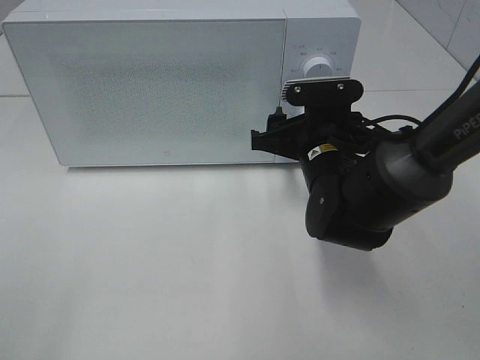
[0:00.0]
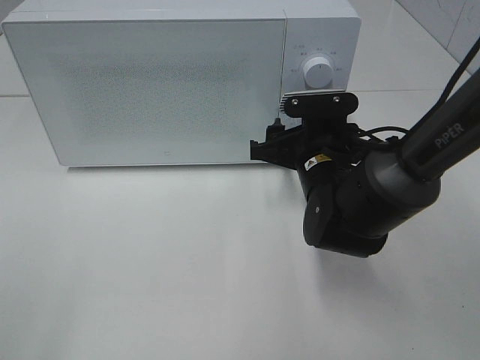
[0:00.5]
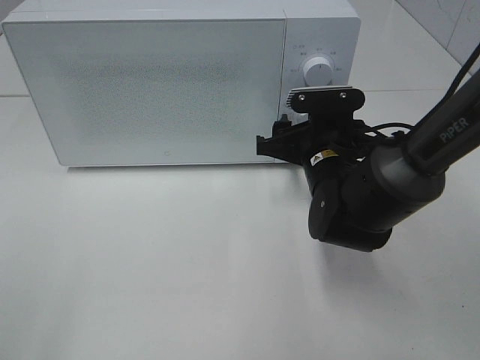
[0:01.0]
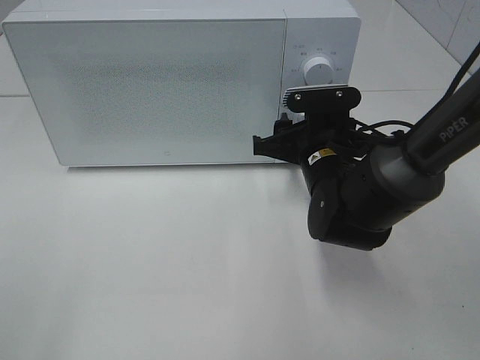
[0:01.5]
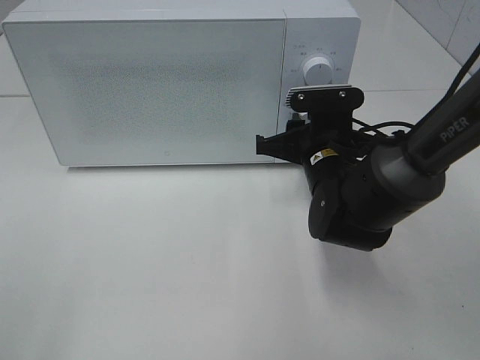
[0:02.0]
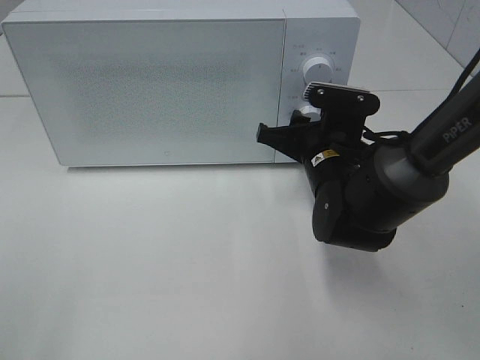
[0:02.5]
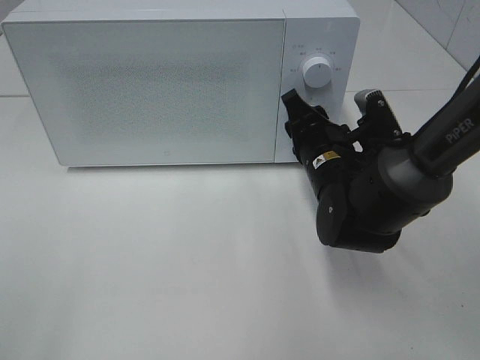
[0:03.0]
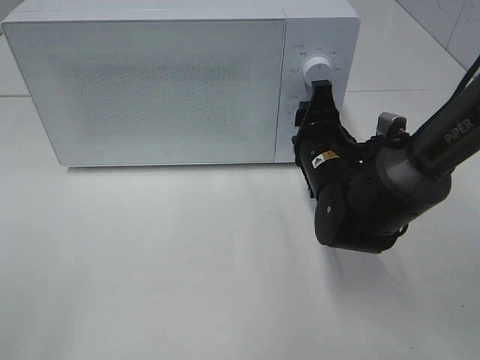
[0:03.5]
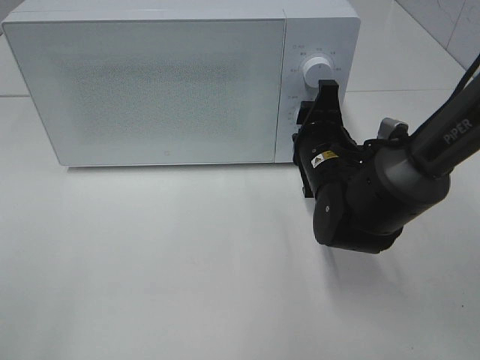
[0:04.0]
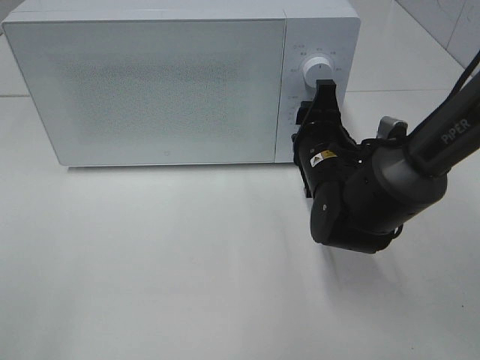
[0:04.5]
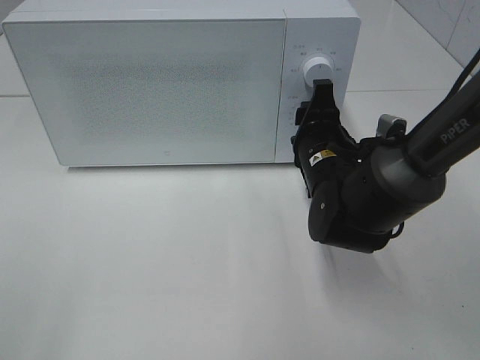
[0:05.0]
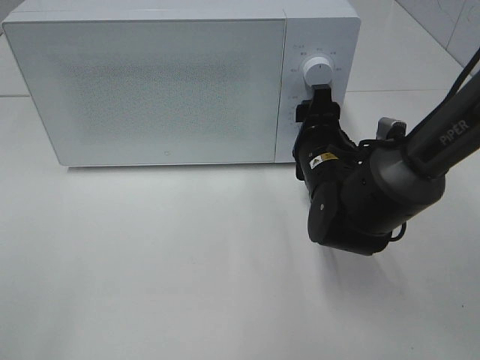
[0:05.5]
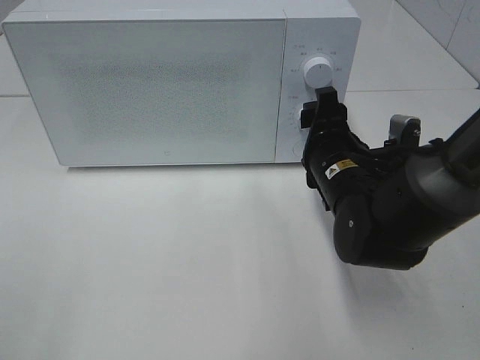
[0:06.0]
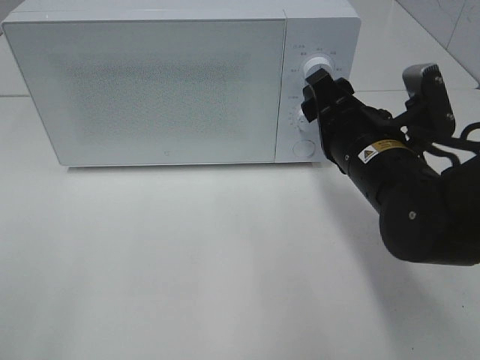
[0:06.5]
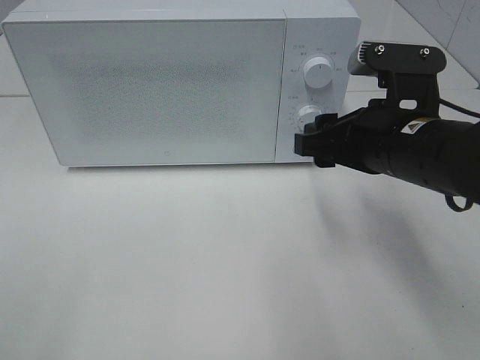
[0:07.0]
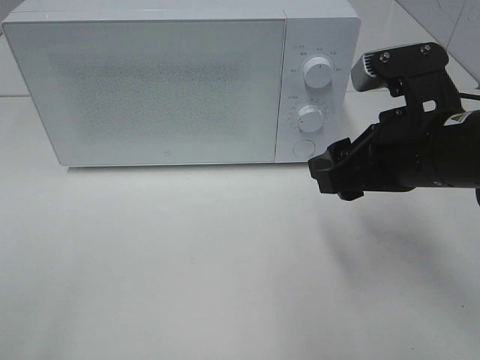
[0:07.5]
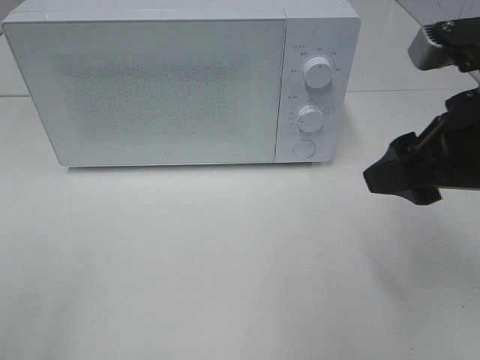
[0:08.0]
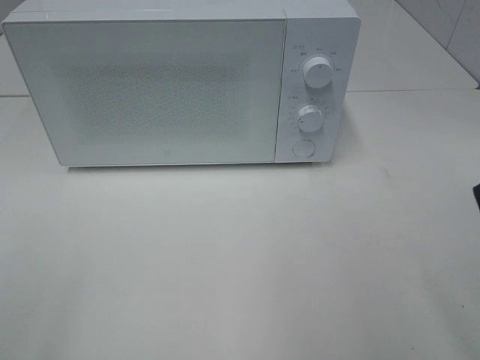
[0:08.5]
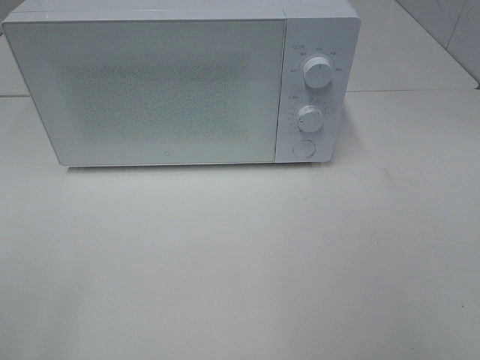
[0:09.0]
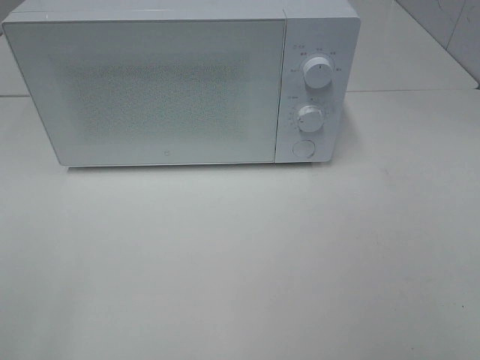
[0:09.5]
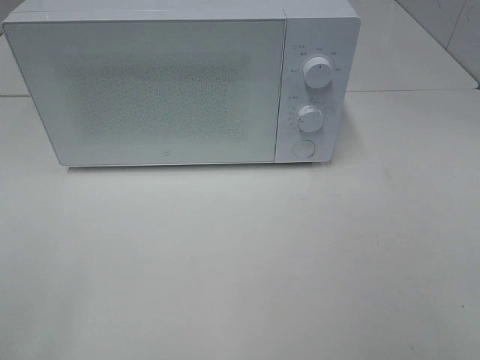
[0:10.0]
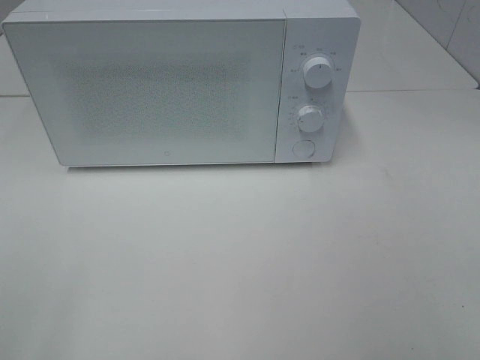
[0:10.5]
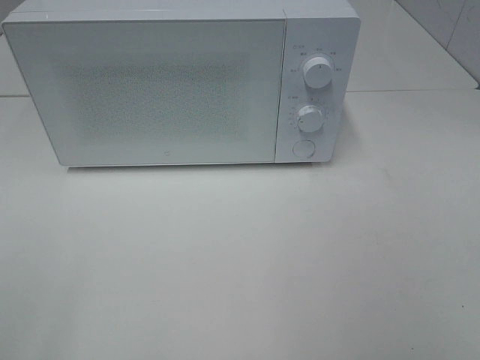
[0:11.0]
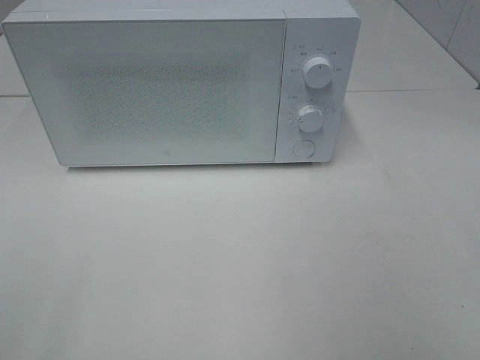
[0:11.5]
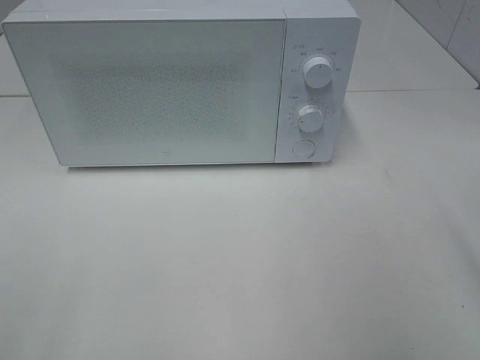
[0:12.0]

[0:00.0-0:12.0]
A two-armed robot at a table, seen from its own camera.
Task of the whole recording: Heat the burger.
Step, 0:00.0 to 0:05.5: Right hand: twist timer button.
0:00.0 to 0:02.0: The right gripper closes its fingers.
0:04.0 to 0:06.0: The grippers move only a little.
0:06.0 to 0:08.0: The right gripper heads upward, backward and to the right, covering some 20 cm.
0:08.0 to 0:10.0: The right gripper heads backward and to the right, covering approximately 20 cm.

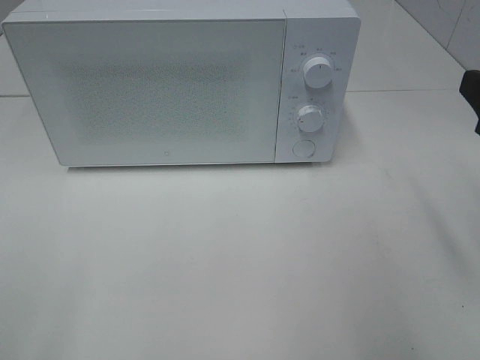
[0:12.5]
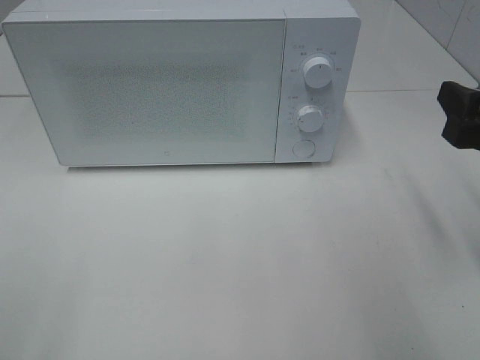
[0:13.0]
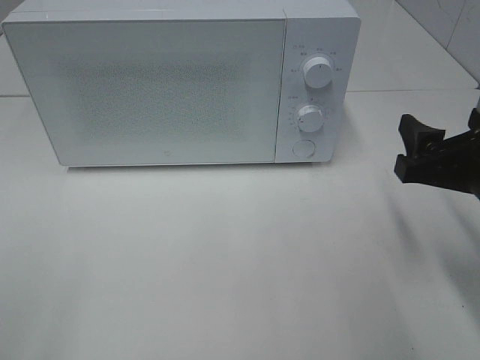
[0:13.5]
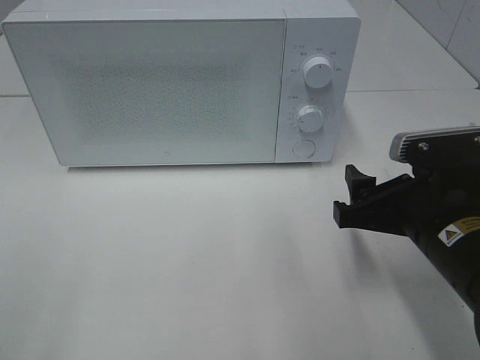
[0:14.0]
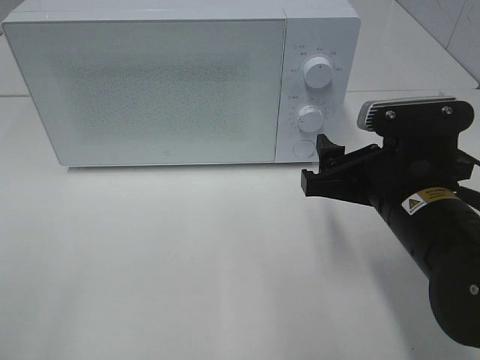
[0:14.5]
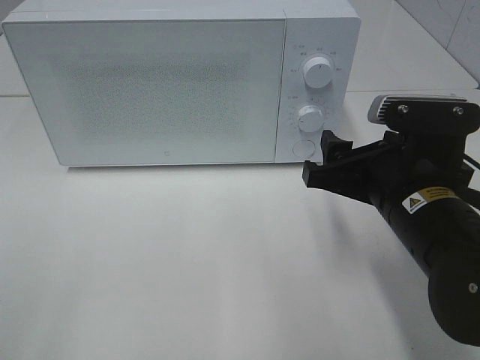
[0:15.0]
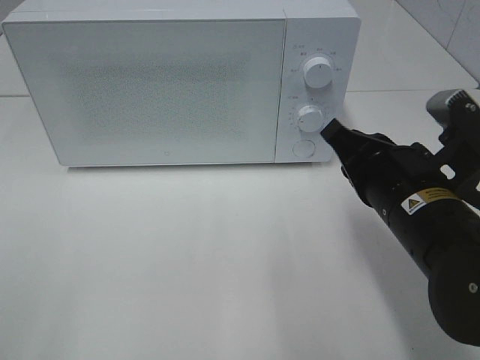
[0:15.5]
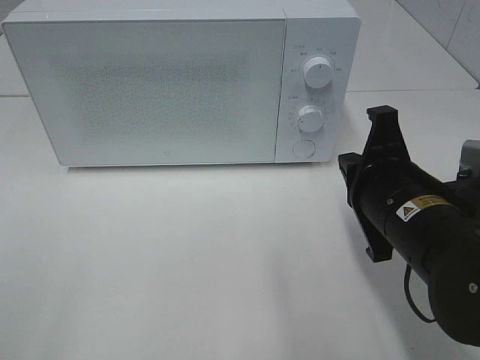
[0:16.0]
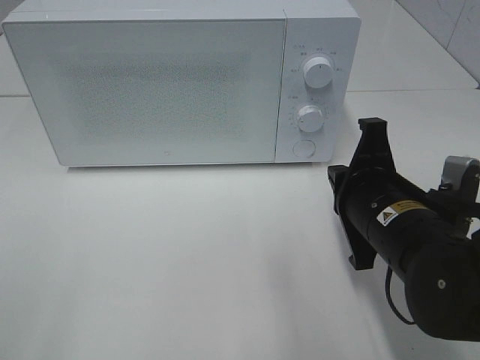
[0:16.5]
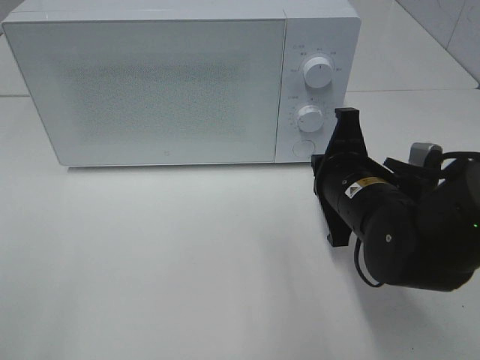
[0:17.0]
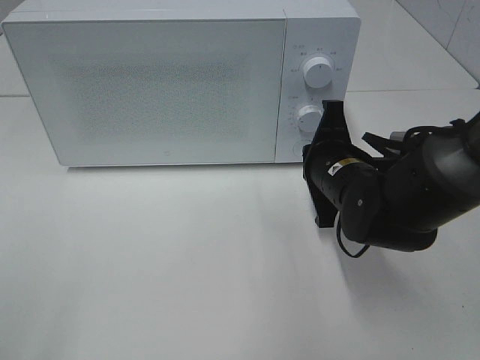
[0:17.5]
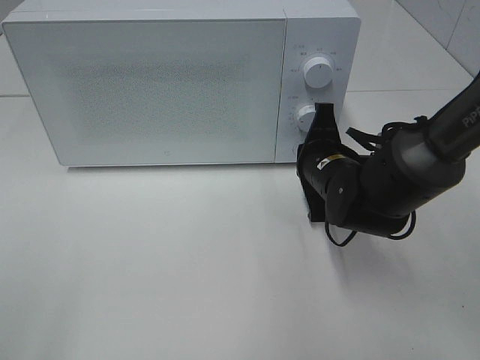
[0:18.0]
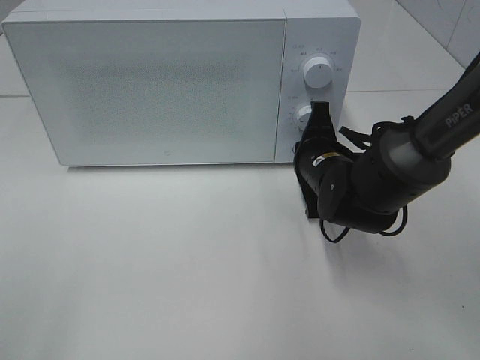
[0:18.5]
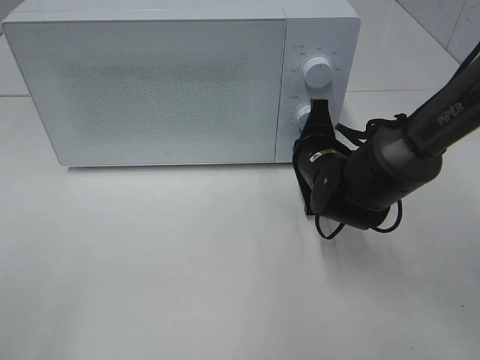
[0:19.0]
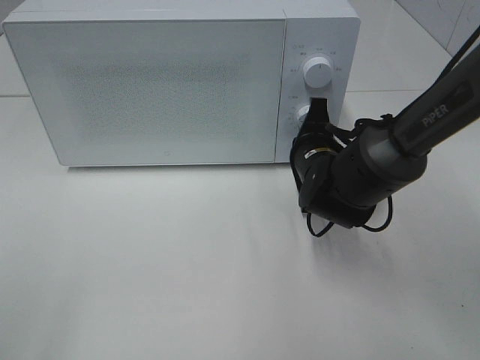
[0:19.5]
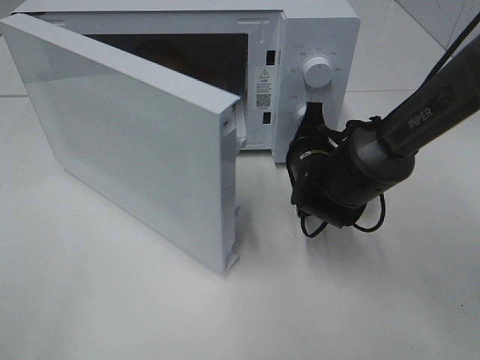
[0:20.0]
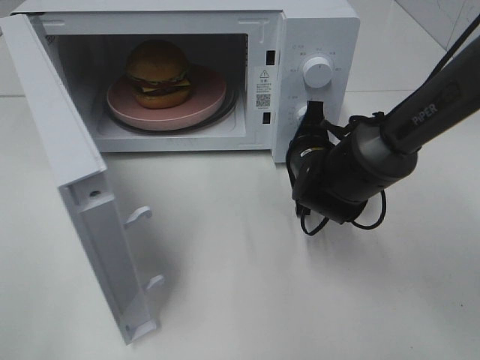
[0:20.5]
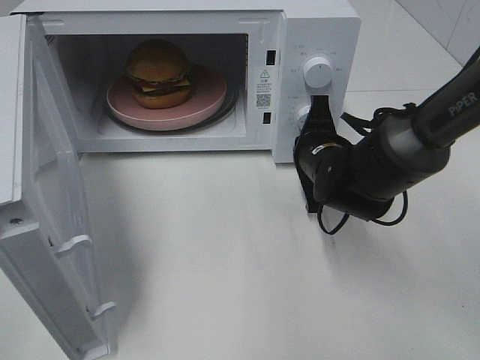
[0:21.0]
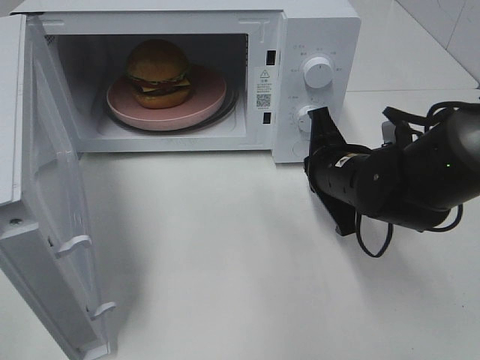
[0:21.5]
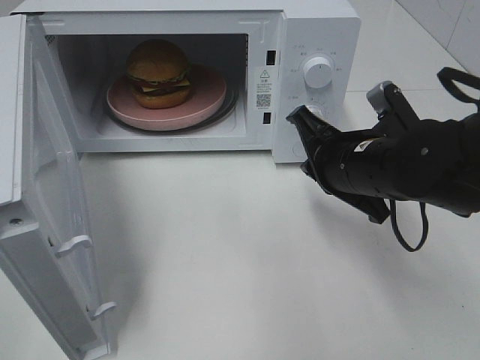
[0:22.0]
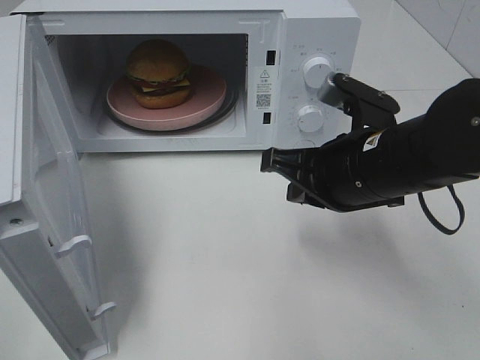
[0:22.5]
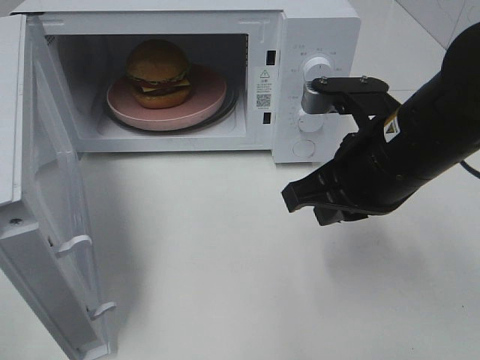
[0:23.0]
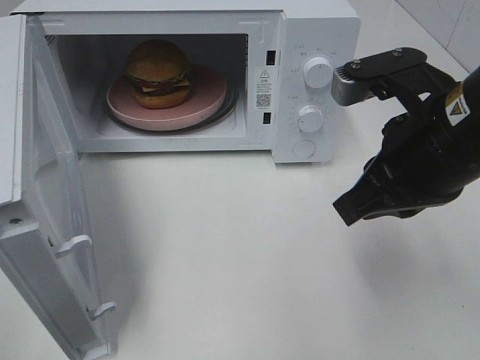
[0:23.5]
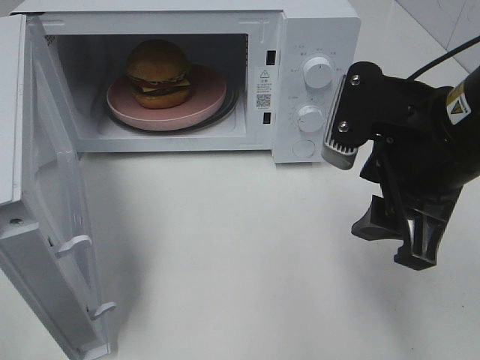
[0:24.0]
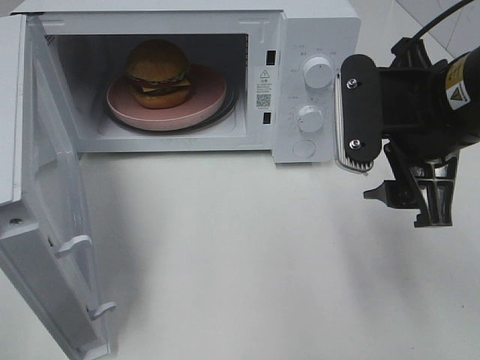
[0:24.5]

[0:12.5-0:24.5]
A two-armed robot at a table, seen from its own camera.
Task of the whole recording: Heat the burger.
Step, 0:12.5 to 0:21.0: Right hand: press the switch.
0:12.5 to 0:14.5: The right gripper heads to the left and downward, covering about 15 cm.
0:14.5 to 0:16.5: The right gripper closes.
0:16.5 to 0:18.5: The right gripper shifts approximately 15 cm forward and downward.
0:20.5 to 0:22.5: The right gripper travels backward and upward by approximately 15 cm.
0:22.5 to 0:24.5: The right gripper moves upward, approximately 10 cm, and opens its fingers.

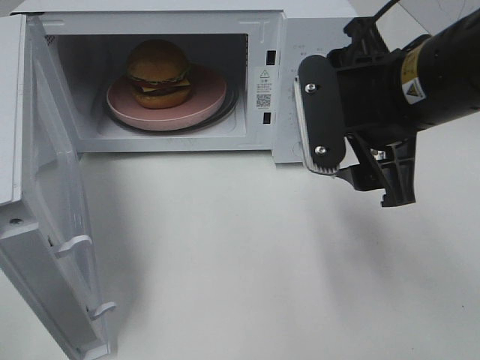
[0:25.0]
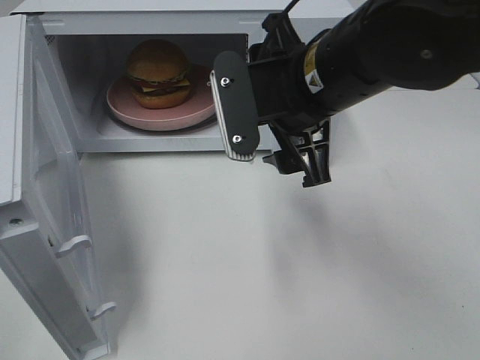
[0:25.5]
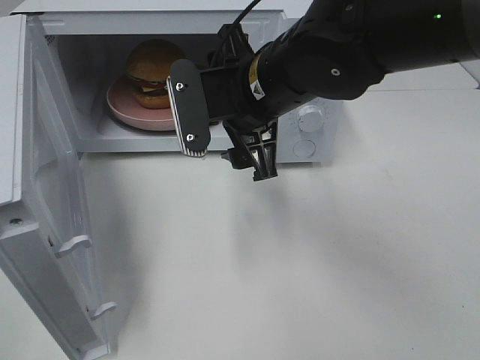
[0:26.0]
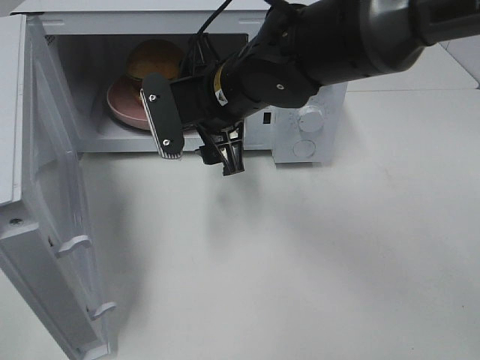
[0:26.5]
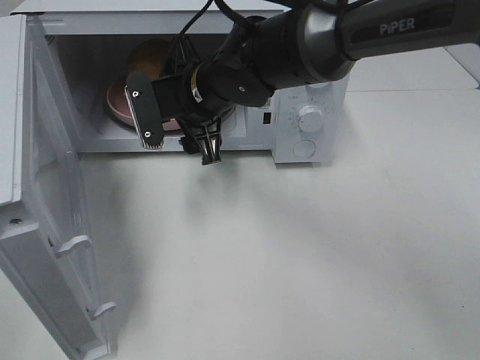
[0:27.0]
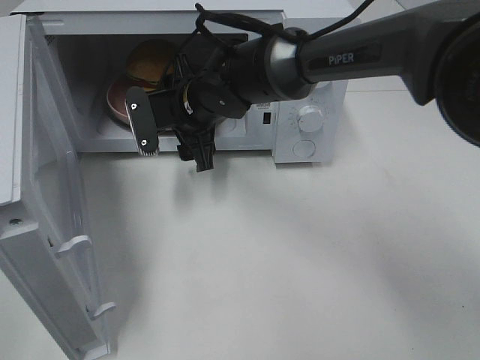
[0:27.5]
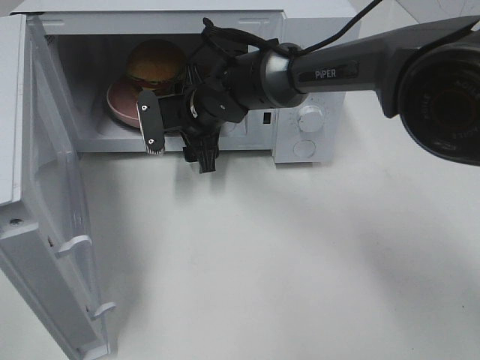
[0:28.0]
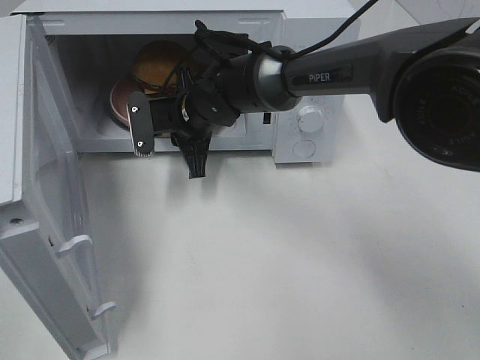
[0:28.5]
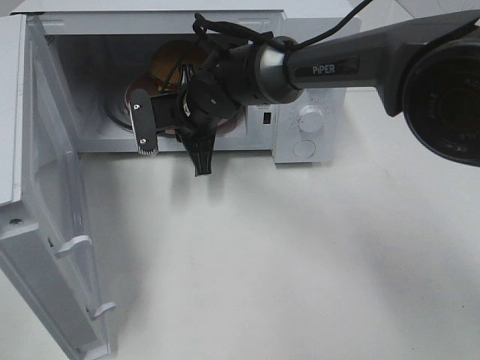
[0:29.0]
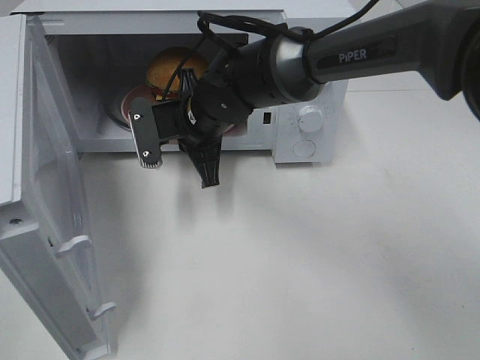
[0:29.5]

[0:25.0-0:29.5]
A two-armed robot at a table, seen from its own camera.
Task of the whole recording: Heat the burger.
Step, 0:25.0 to 0:28.5: Right hand: grab the plate with the hamburger.
0:25.0 to 0:27.0: The right gripper moves to the left, forward and downward, roughly 25 cm.
0:27.0 to 0:29.5: The right gripper closes its fingers.
